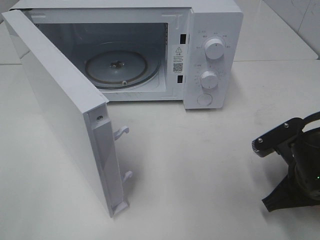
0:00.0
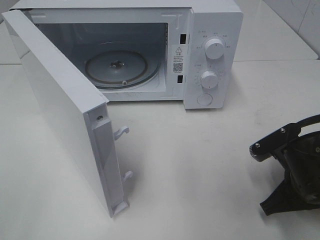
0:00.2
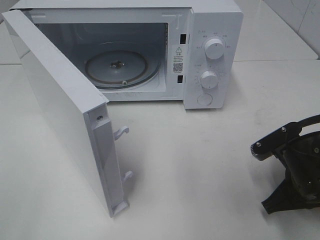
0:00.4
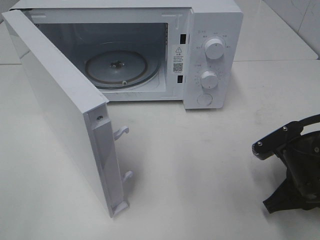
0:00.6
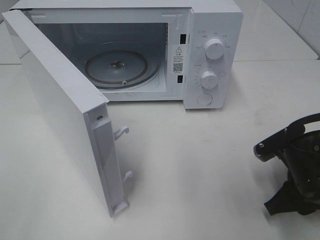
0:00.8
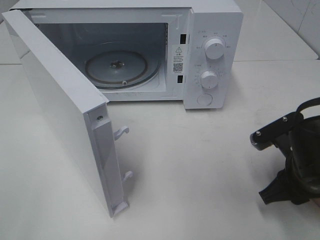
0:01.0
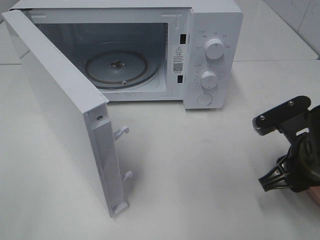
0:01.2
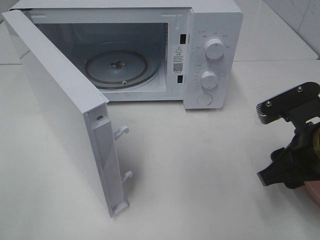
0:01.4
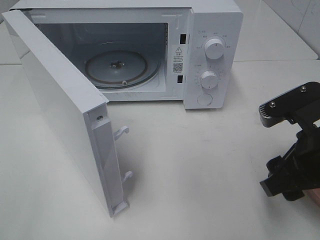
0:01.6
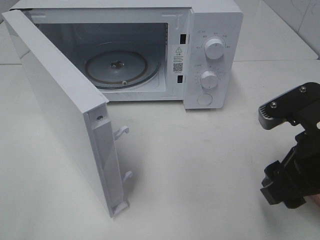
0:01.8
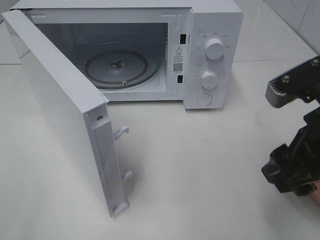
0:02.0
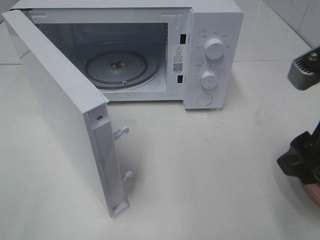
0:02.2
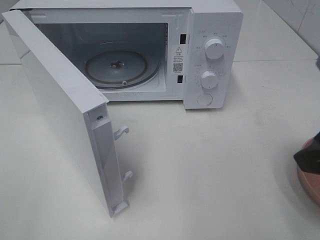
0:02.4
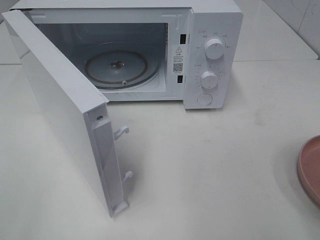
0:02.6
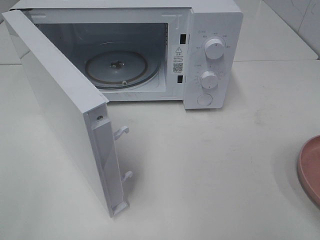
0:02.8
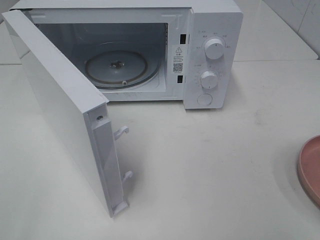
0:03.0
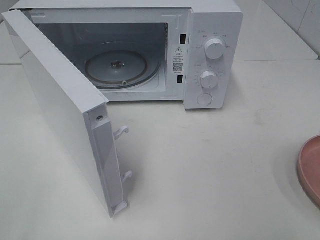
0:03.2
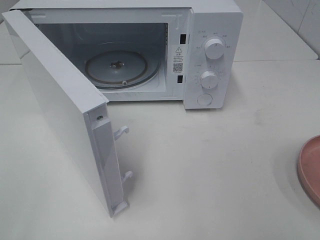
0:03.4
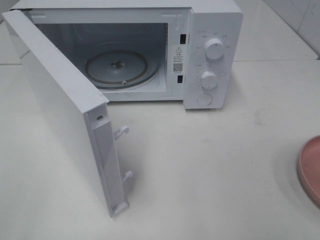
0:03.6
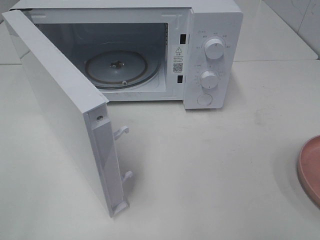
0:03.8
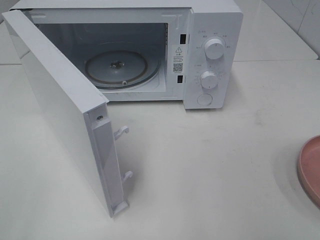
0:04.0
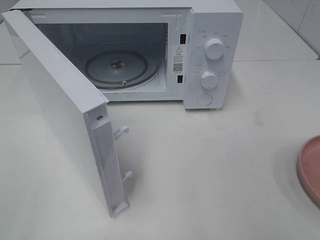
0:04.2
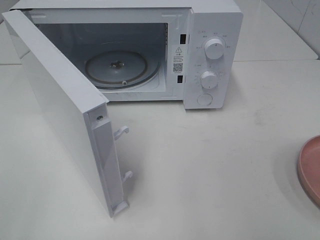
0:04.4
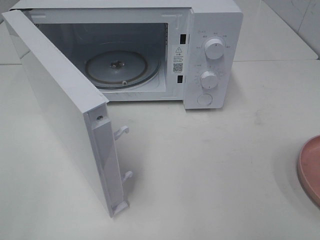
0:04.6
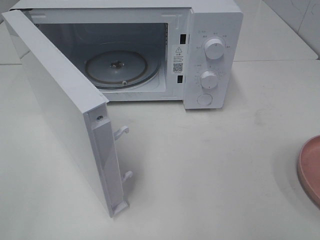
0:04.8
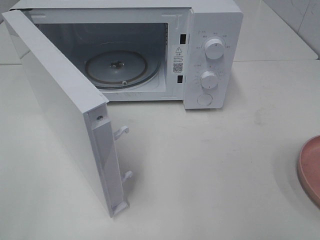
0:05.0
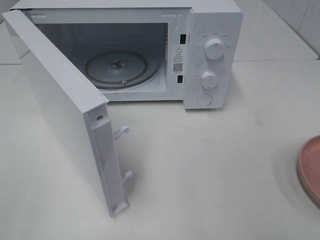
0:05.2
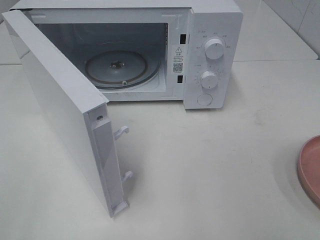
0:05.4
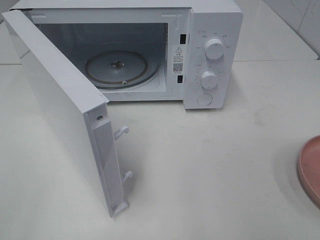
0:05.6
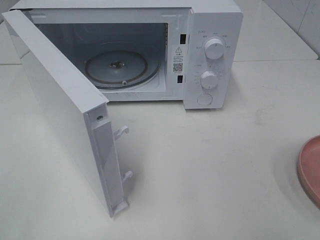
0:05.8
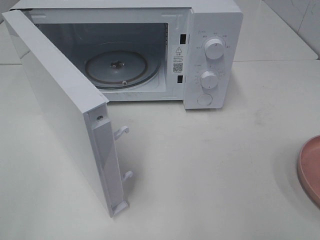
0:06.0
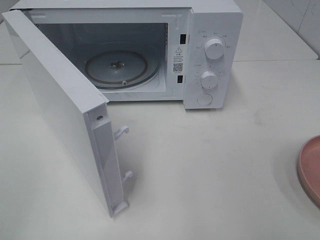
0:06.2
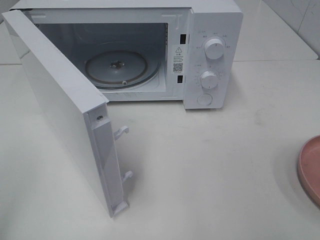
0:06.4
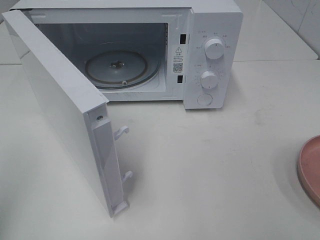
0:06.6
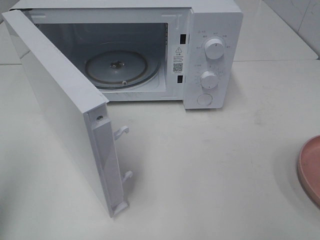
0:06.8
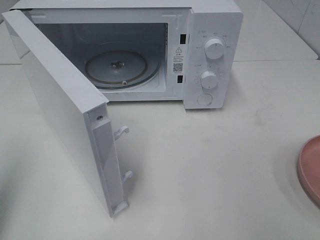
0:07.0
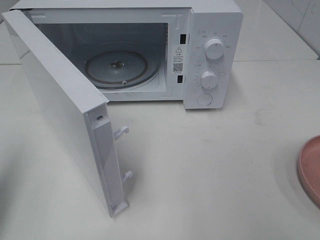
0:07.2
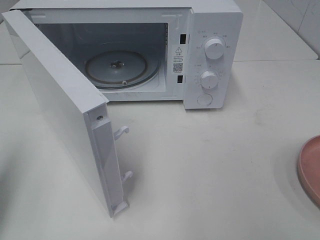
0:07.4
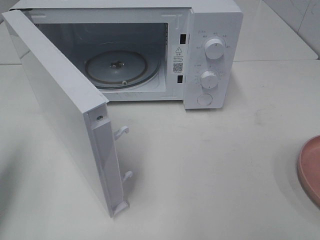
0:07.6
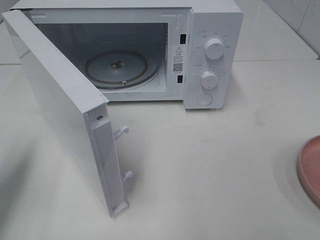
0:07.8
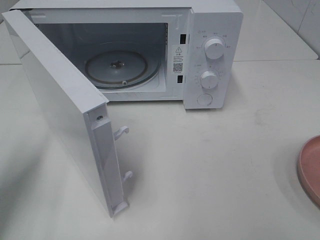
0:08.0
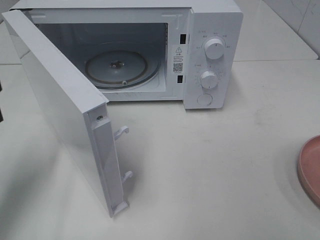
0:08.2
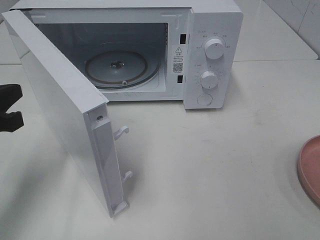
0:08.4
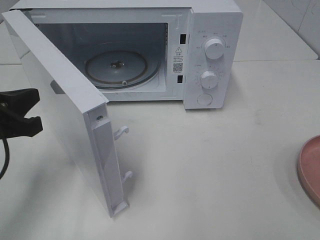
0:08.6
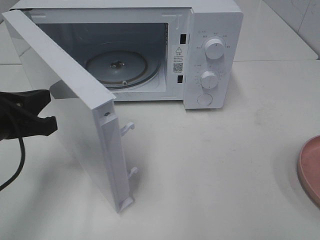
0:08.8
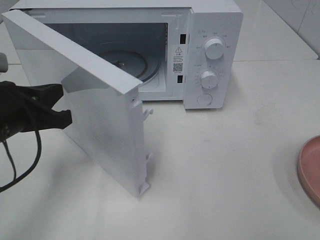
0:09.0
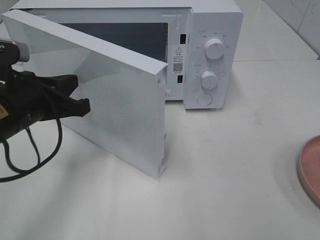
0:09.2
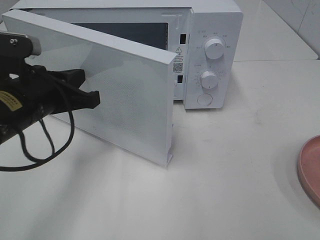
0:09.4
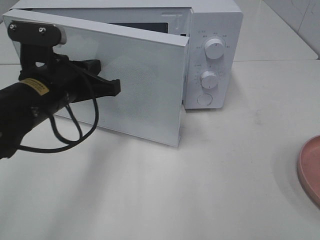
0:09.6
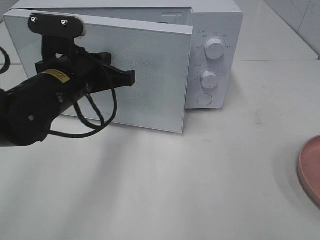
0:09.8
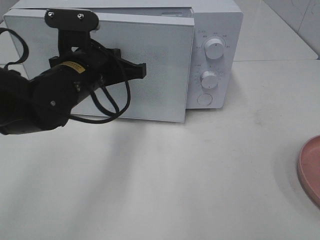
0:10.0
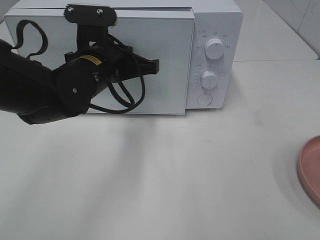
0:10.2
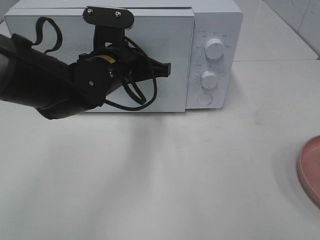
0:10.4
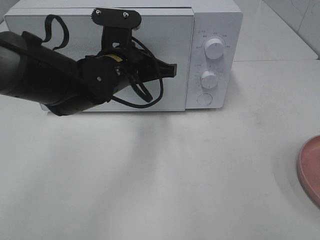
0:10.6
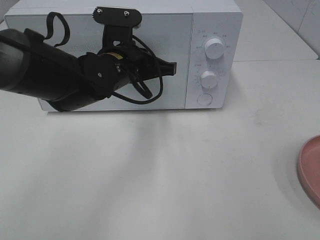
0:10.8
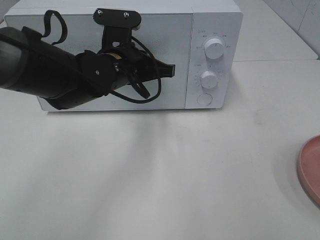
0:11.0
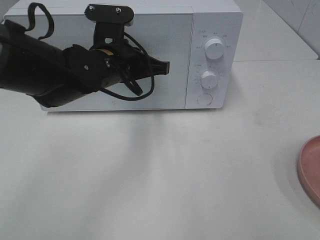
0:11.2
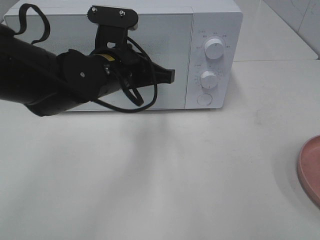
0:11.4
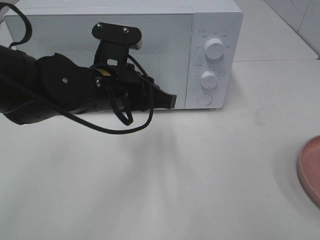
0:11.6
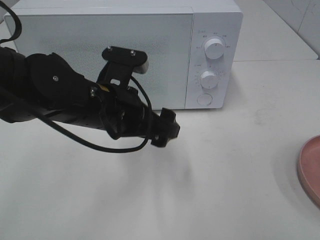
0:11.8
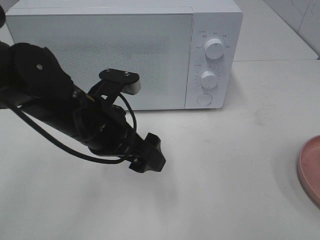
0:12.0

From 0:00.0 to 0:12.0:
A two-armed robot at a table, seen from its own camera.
Task of the whole recording: Heat the burger.
Step, from 0:01.4 to 0:11.4: Left hand: close the microwave door.
From 0:00.0 to 0:01.6: The right gripper travels upward by roughly 10 cm, and opens its fingers.
From 0:01.6 to 0:03.0: The right gripper is displaced upward, backward and to the right by about 15 cm.
From 0:04.4 to 0:06.0: Neither gripper changes place.
From 0:06.0 to 0:07.6: The left gripper goes about 20 cm forward and downward, and closes its fingers.
From 0:07.6 to 0:09.0: The left gripper heads to the right, forward and downward, covering some 15 cm.
From 0:09.0 to 0:10.4: The left gripper heads to the right and forward, covering approximately 20 cm.
From 0:10.4 to 0:12.0: The left gripper travels backward by roughly 10 cm, and opens up.

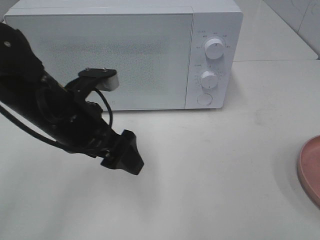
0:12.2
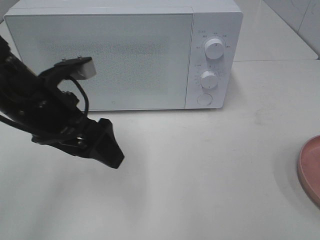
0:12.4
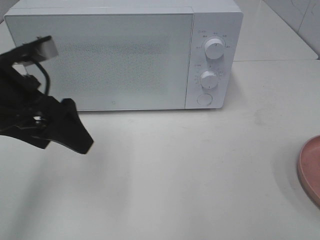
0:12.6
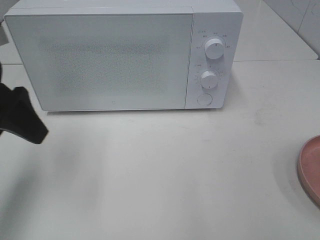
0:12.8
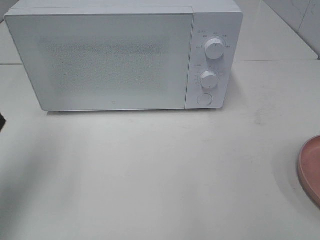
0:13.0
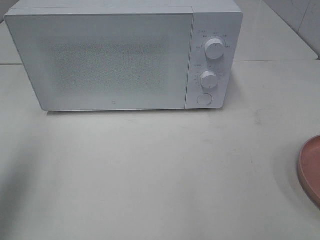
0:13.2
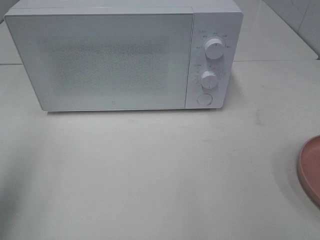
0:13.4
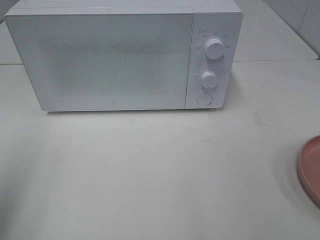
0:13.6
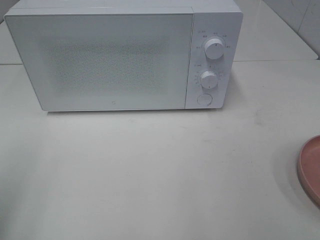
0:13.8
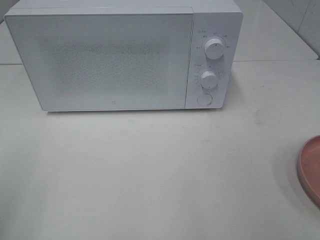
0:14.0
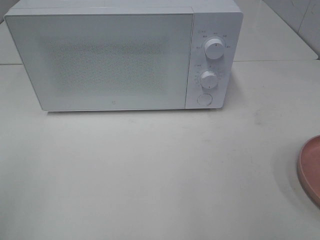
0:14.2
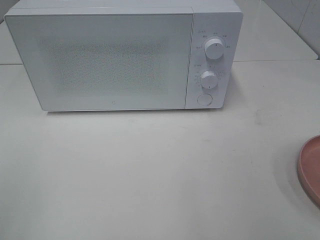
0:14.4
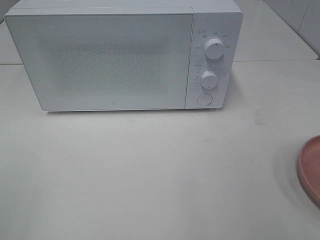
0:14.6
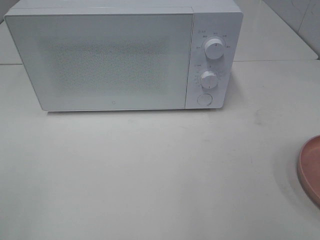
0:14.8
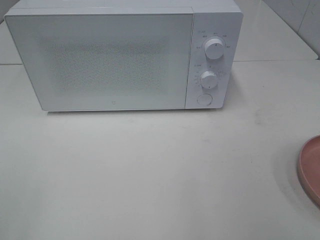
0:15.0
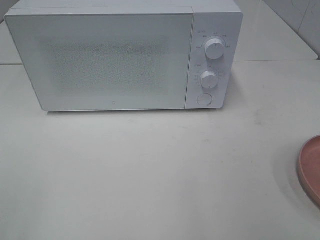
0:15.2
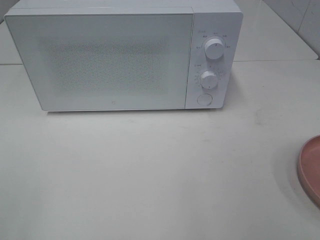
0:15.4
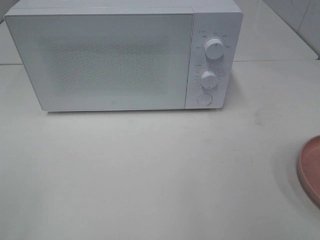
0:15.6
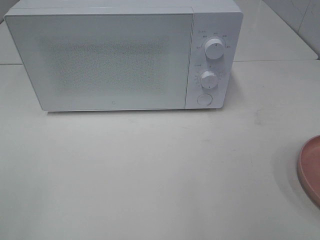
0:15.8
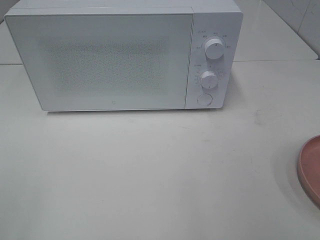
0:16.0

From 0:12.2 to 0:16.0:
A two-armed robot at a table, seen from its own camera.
Task of the whole recording: Heat the burger.
From 0:12.2 to 0:13.4: The left gripper goes about 25 cm to the left, upward and backward.
From 0:13.4 to 0:14.8: The left gripper travels backward by roughly 15 cm.
From 0:14.8 to 0:16.0: Neither gripper changes place.

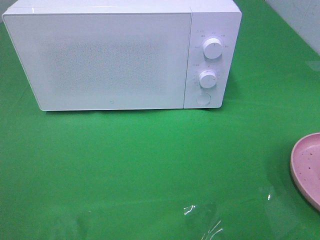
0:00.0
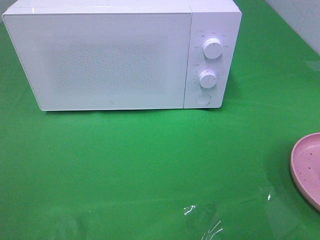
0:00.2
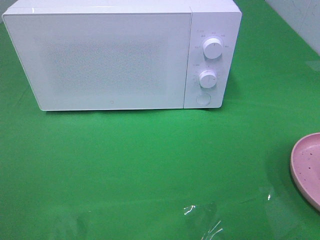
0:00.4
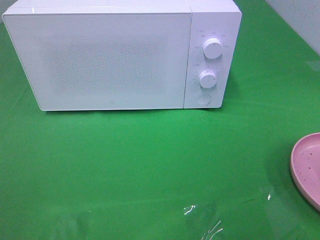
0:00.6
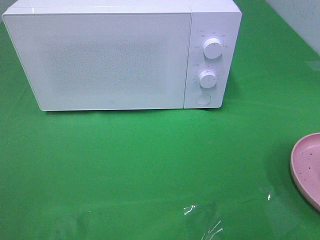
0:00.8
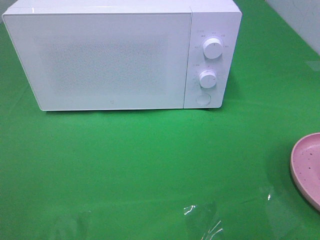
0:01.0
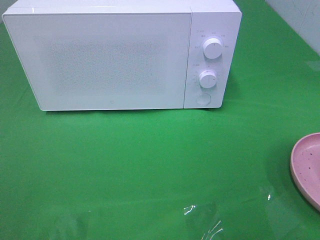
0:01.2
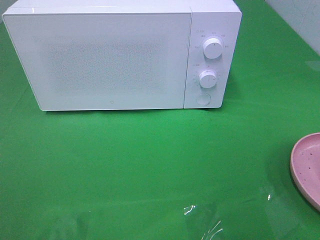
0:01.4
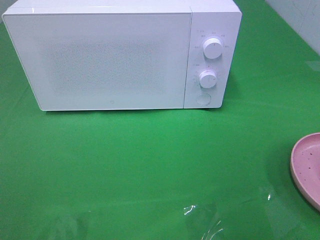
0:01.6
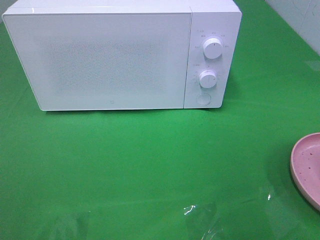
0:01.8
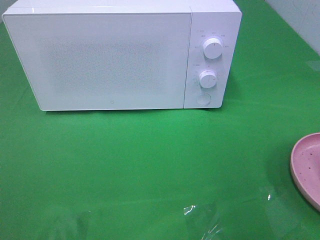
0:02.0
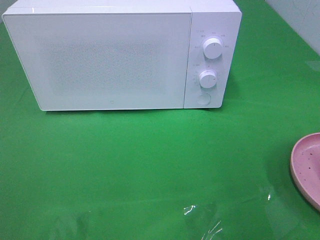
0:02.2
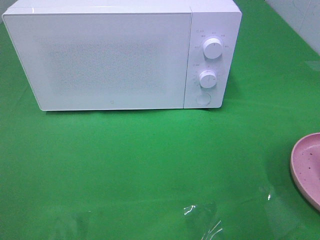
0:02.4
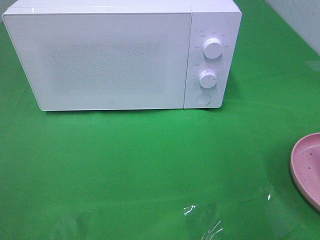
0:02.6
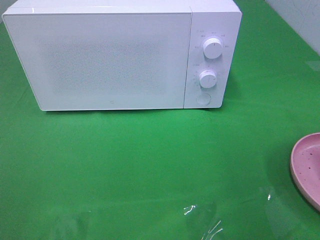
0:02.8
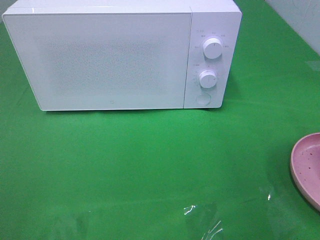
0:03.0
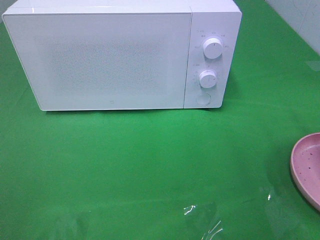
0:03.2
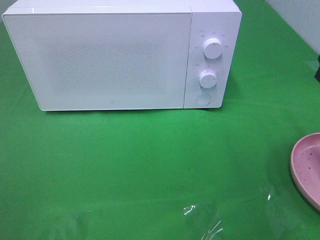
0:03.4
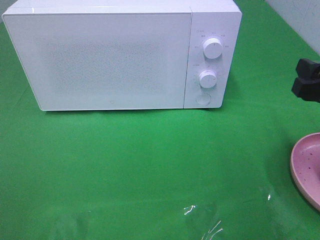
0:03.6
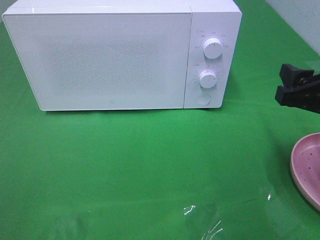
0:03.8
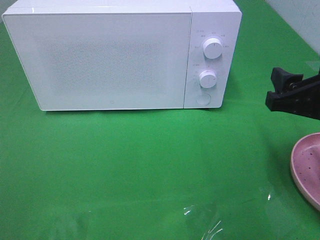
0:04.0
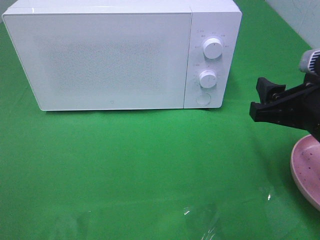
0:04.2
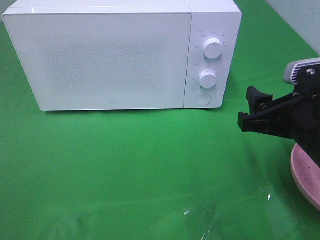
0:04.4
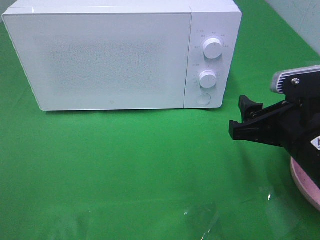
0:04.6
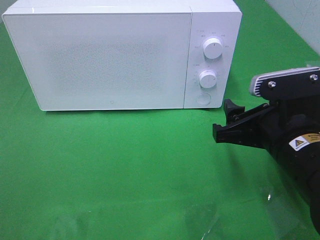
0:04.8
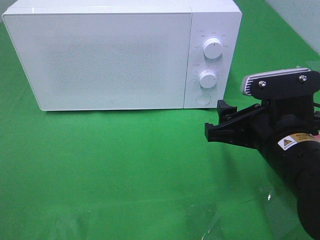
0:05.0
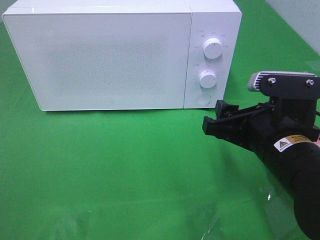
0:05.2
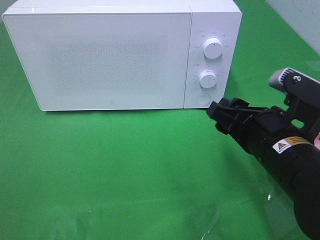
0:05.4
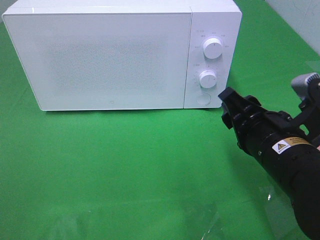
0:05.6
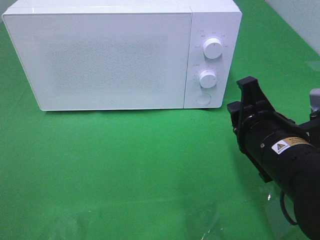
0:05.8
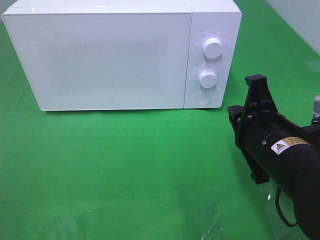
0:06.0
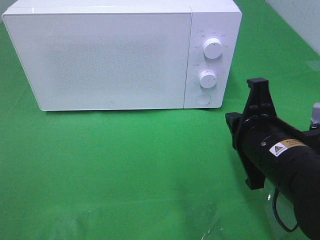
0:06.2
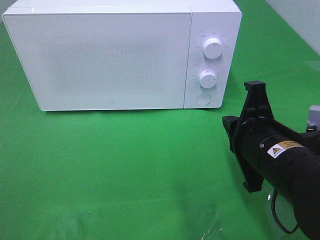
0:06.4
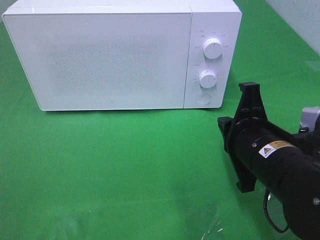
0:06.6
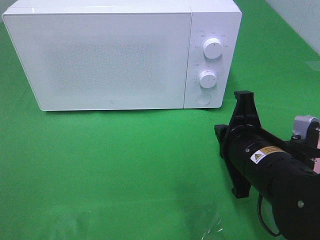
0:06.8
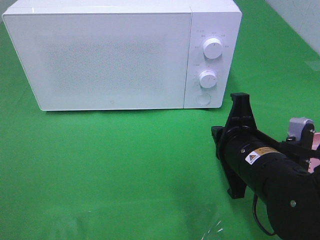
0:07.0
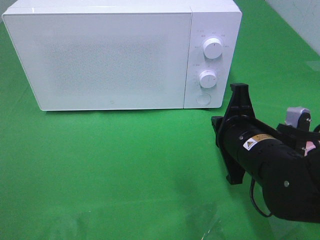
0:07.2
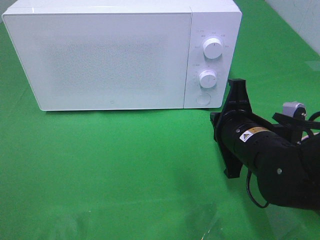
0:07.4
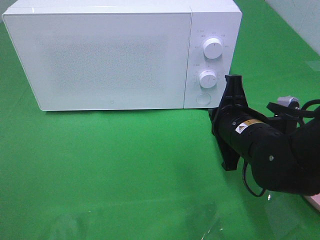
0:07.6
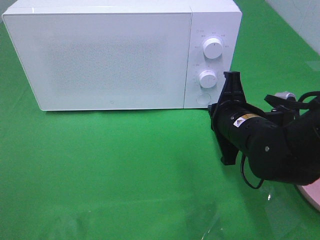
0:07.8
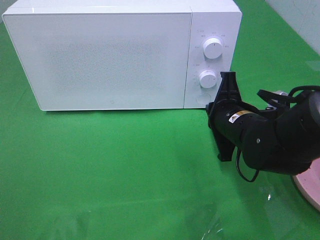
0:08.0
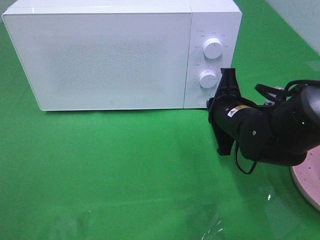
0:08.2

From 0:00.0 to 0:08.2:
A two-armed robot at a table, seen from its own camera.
Task of the whole recording: Heat the burger.
From 0:03.2 to 0:05.0: The right gripper travels to the left and downward by approximately 15 cm.
From 0:05.0 to 0:06.6: The right gripper closes its fingers.
From 0:06.6 to 0:08.2: The right gripper goes about 10 cm forward.
